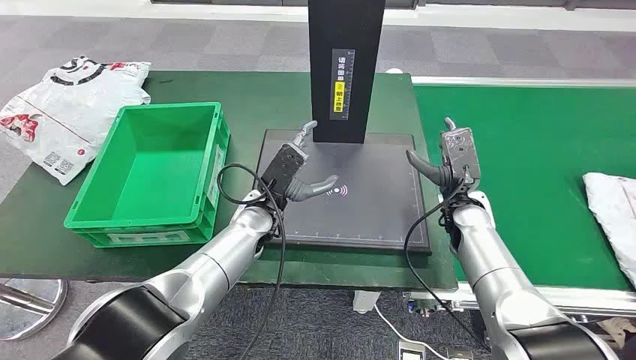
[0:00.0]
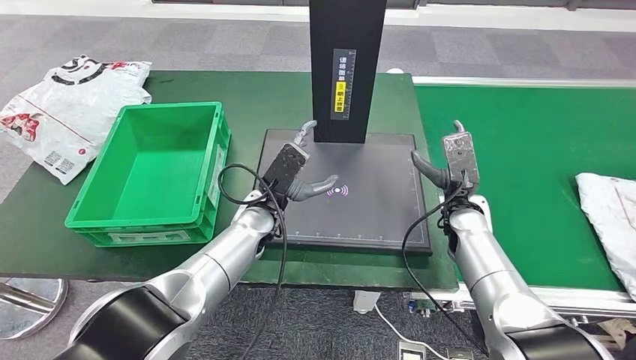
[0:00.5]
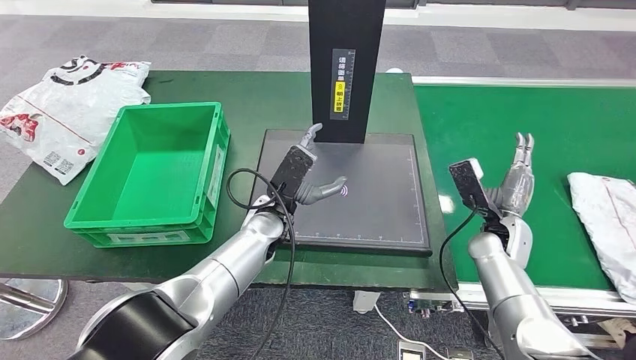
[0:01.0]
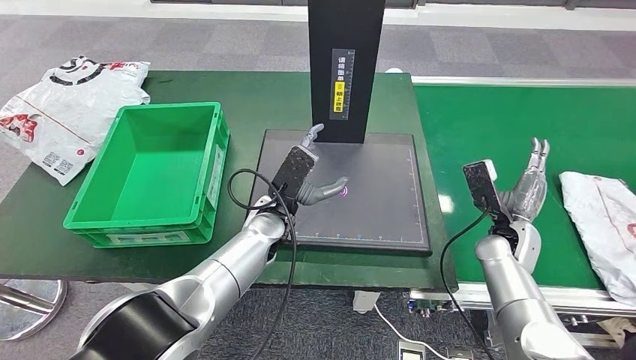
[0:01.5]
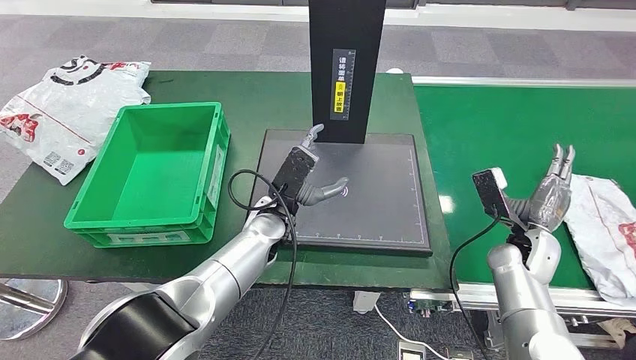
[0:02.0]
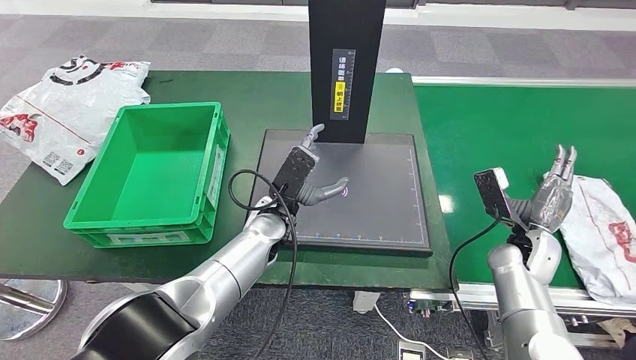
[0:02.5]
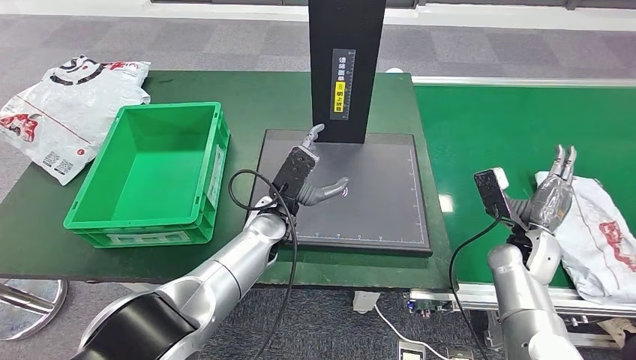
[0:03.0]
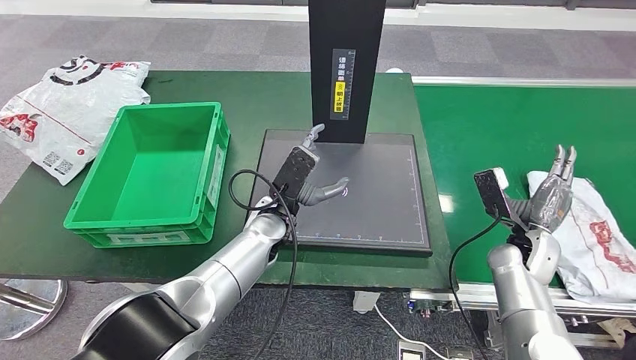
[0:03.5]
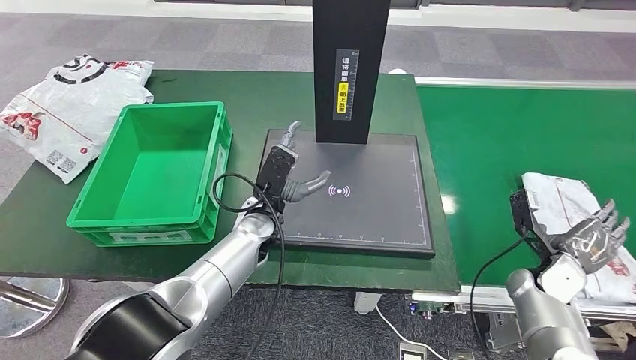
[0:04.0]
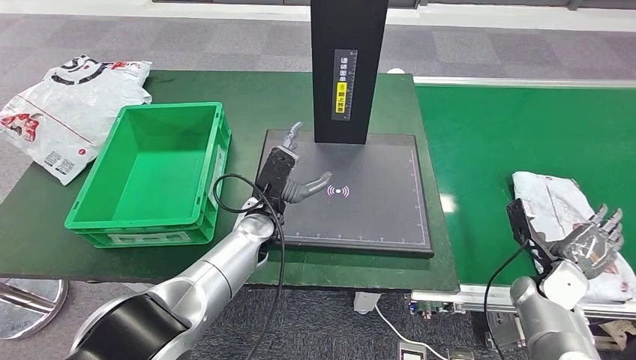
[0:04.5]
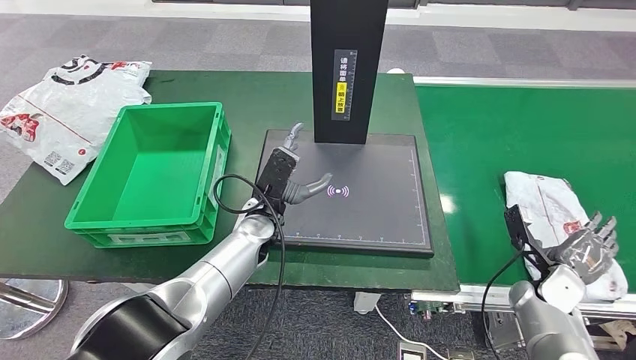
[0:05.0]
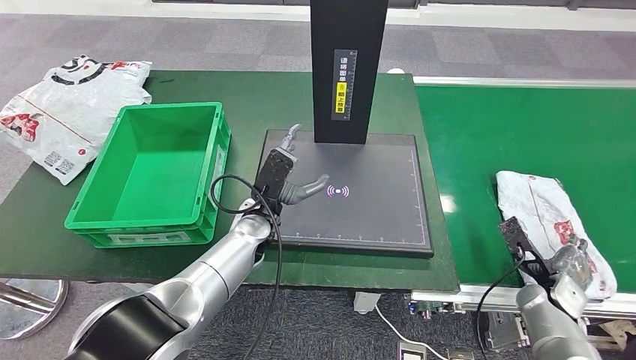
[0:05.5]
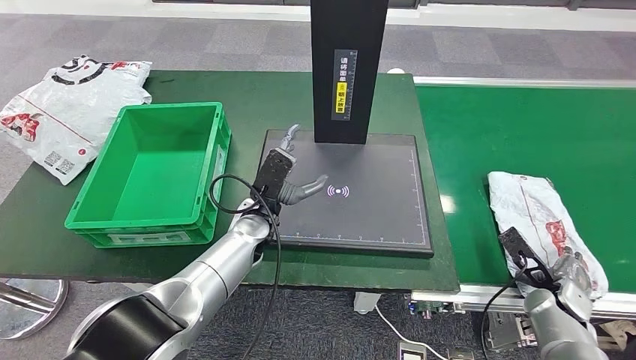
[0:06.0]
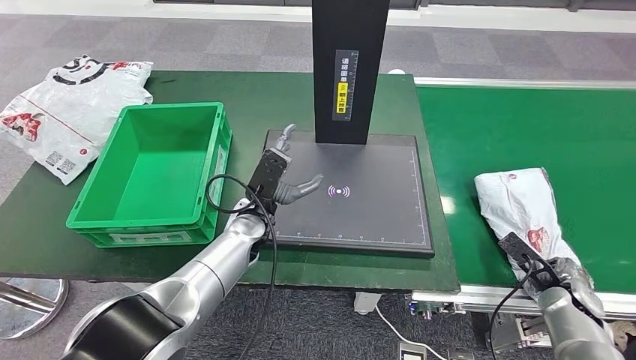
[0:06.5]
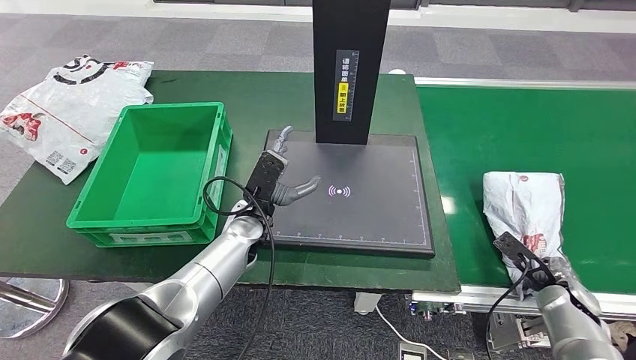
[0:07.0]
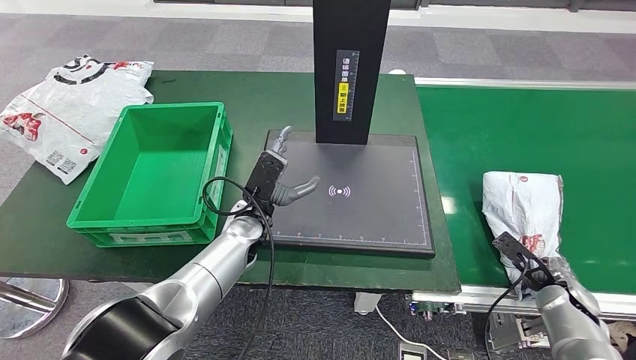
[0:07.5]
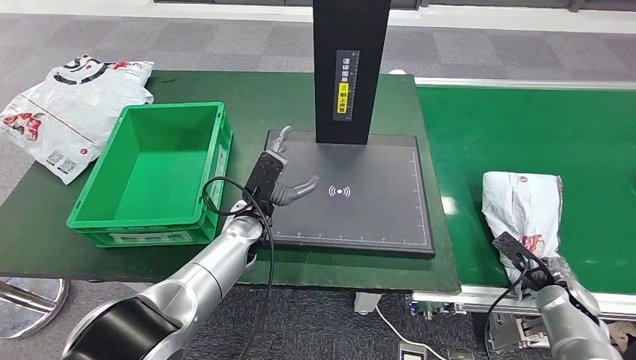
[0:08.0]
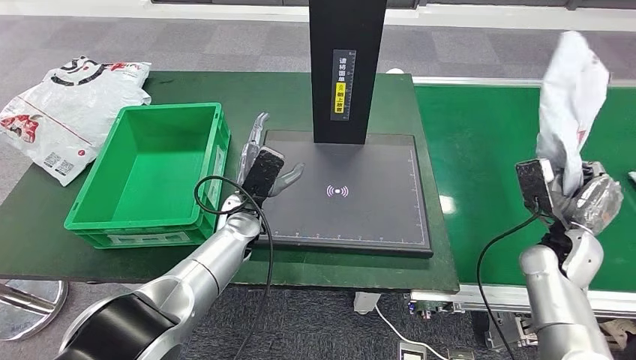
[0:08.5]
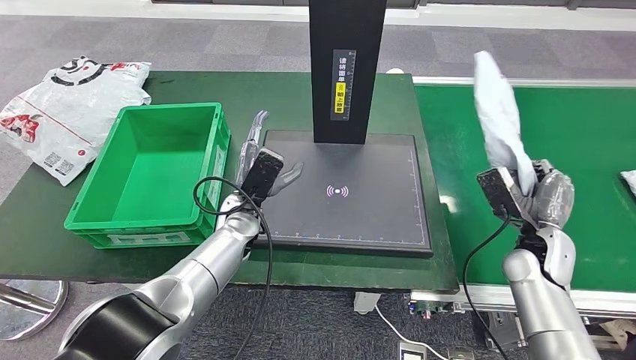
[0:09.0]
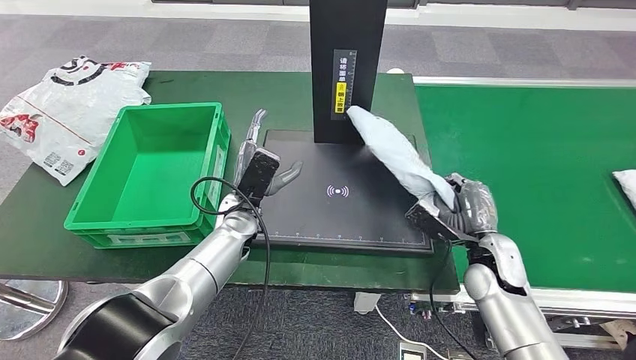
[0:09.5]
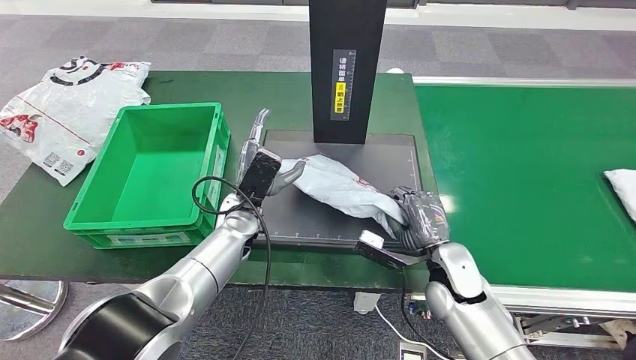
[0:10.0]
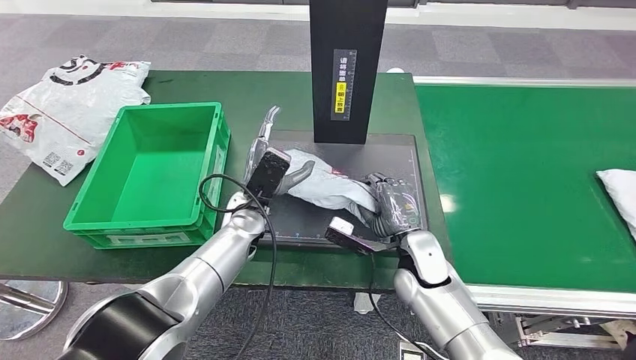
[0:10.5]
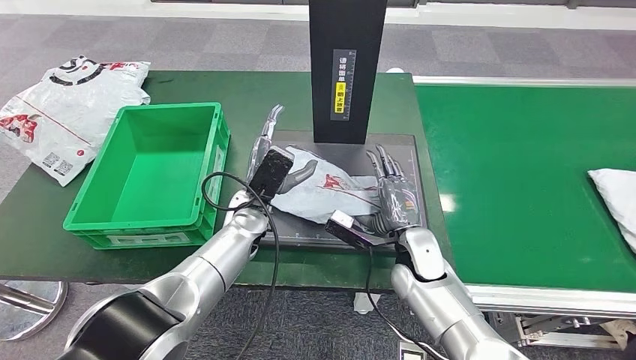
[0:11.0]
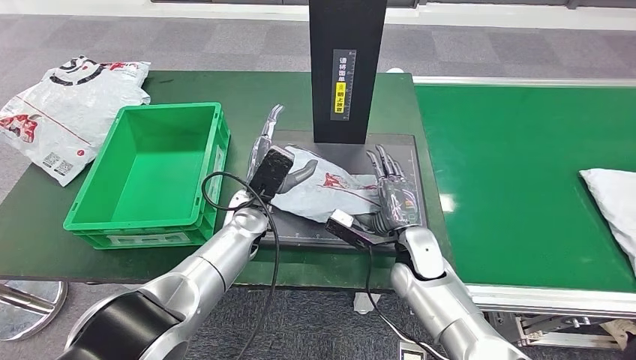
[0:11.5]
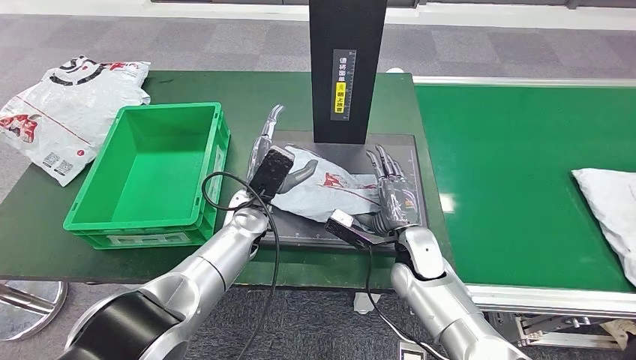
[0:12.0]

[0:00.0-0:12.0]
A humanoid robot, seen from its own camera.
Step, 0:00.0 to 0:08.5: Take the parcel off the conveyor belt.
0:04.0 to 0:06.0: The right hand changes place by approximately 5 cm.
0:06.0 to 0:08.0: The hands move only a little.
0:10.0 to 0:12.0: The right hand shifts some 5 cm to the left.

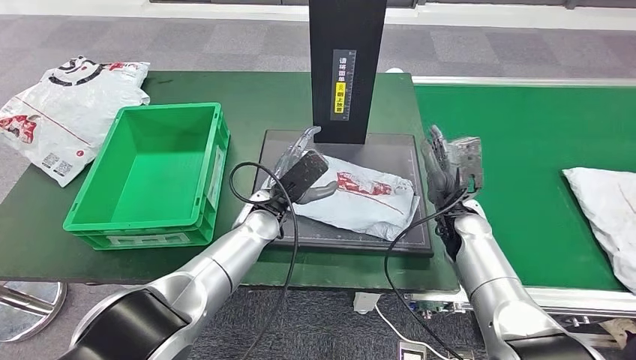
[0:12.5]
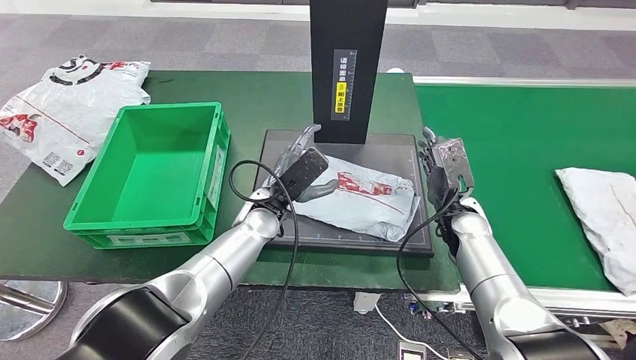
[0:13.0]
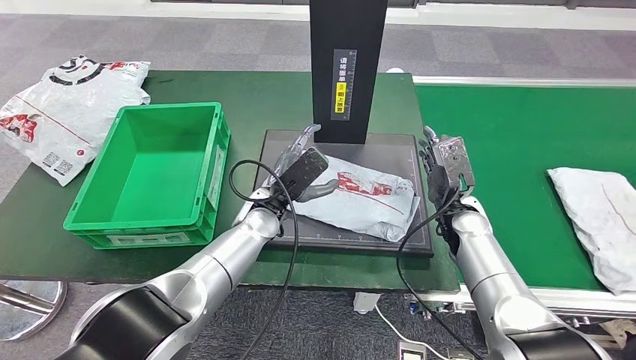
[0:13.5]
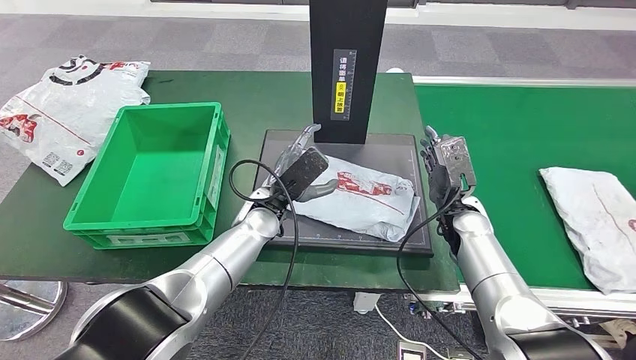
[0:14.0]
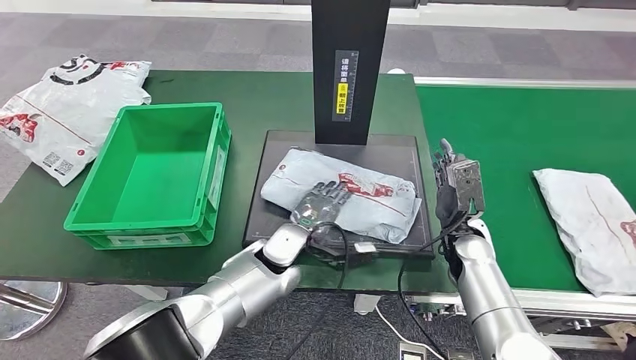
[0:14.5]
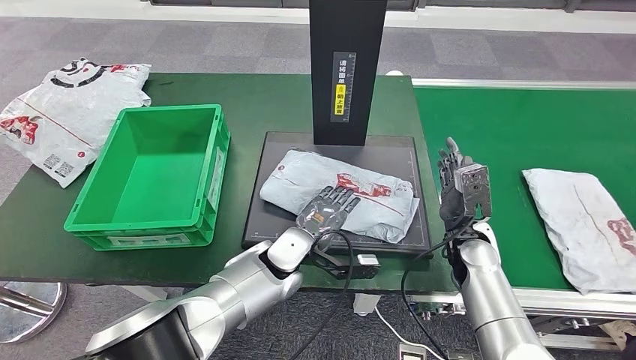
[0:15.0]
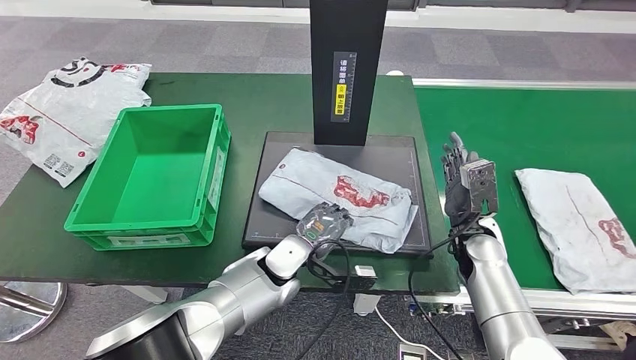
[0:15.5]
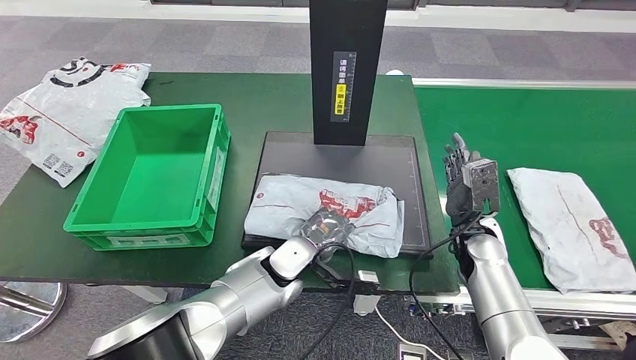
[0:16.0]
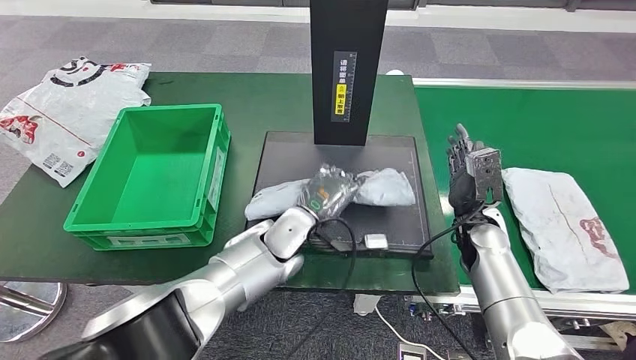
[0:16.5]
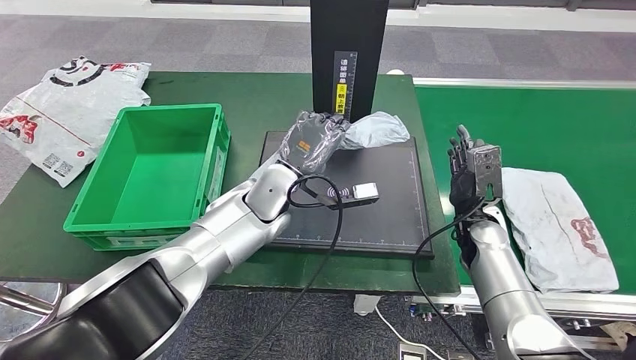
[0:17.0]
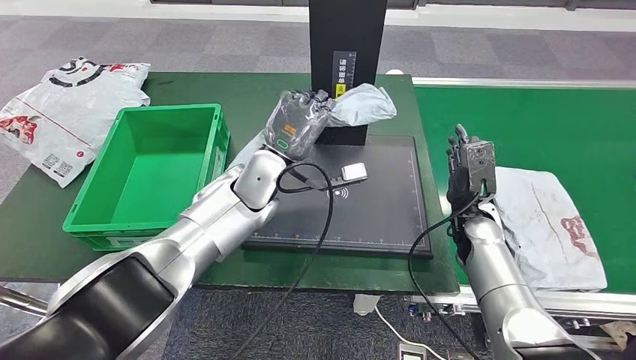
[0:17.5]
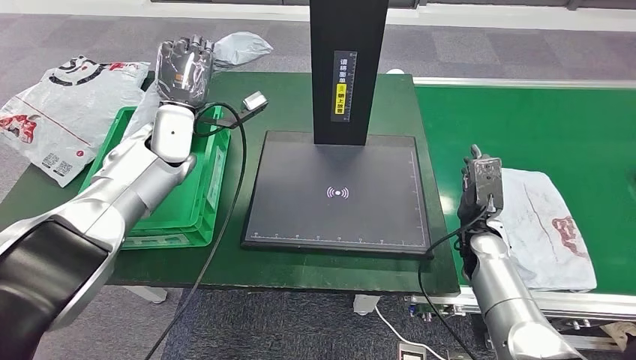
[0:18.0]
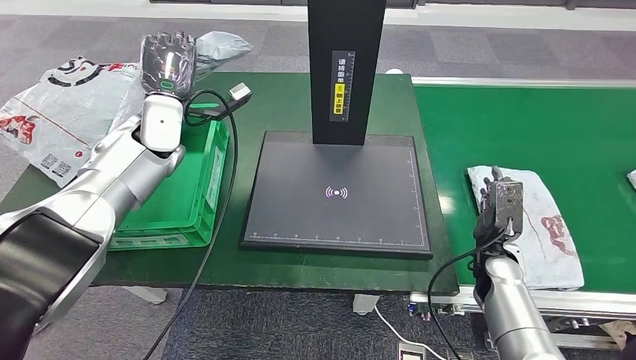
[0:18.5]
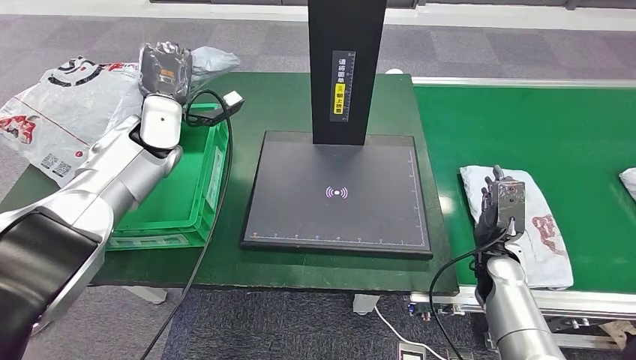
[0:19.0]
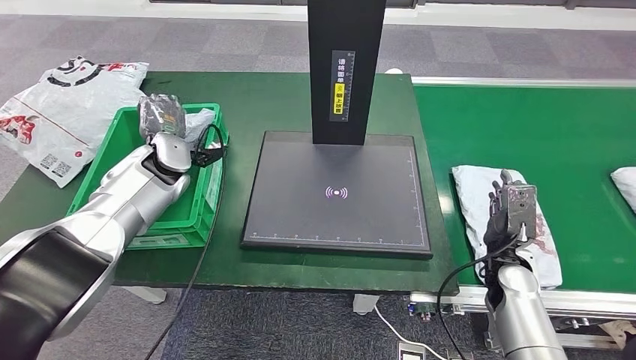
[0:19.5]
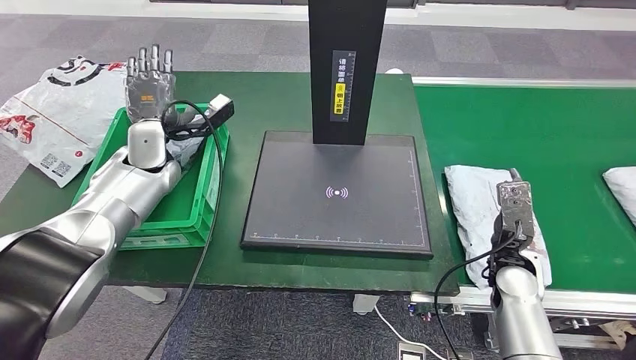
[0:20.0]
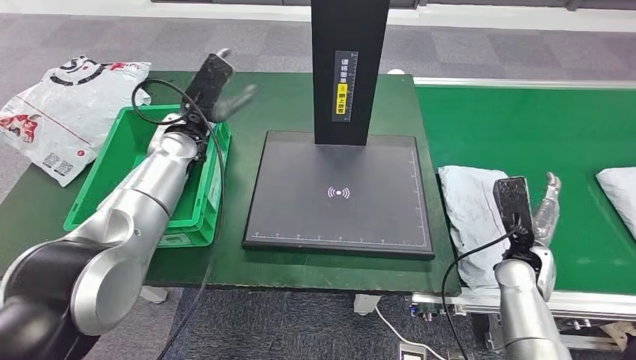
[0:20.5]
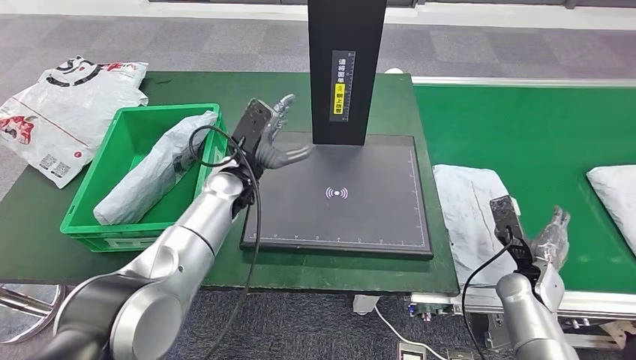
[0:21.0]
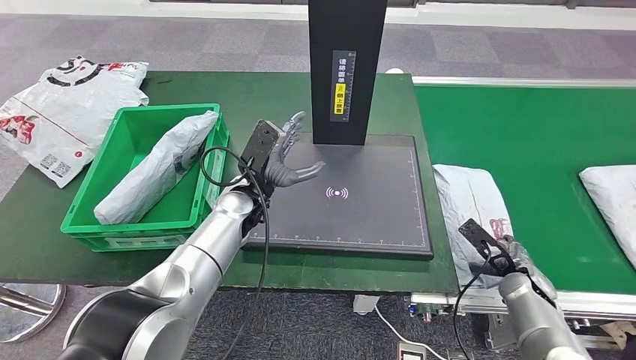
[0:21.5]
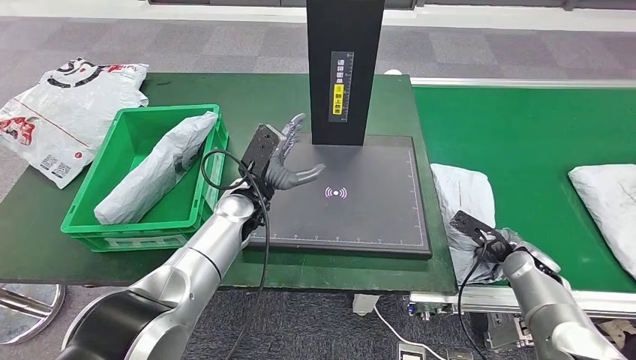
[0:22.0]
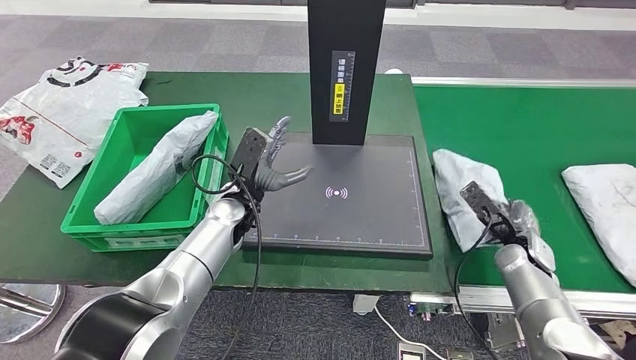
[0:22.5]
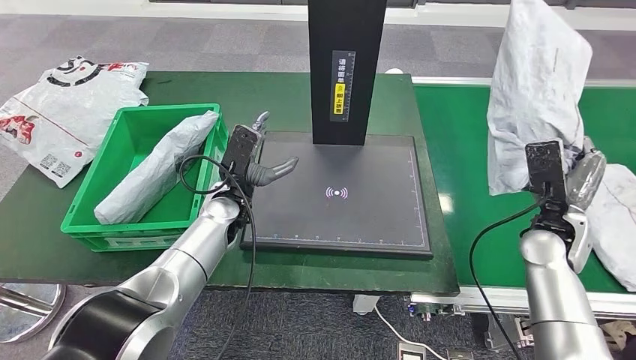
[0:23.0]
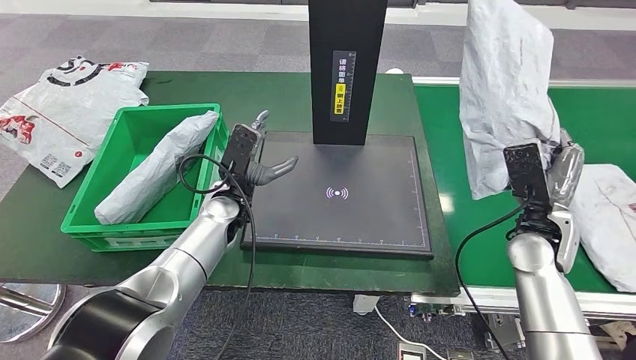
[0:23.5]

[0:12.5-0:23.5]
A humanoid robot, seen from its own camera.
Step, 0:13.0 to 0:16.5: Pick up the parcel from the inbound machine.
Step, 0:17.0 to 0:21.0: Put the parcel inside the courier box.
Step, 0:21.5 to 0:22.5: Pick up the parcel from the conveyor belt.
